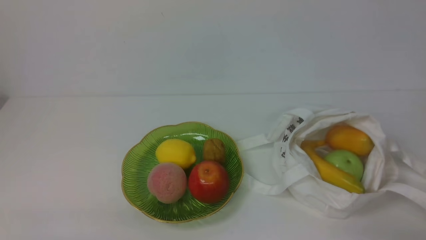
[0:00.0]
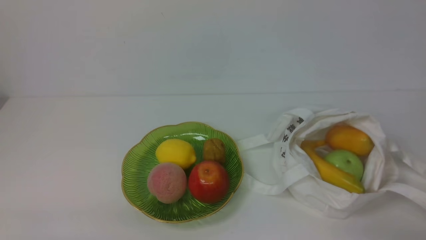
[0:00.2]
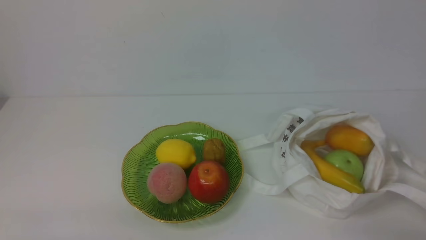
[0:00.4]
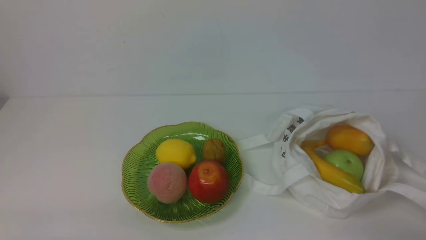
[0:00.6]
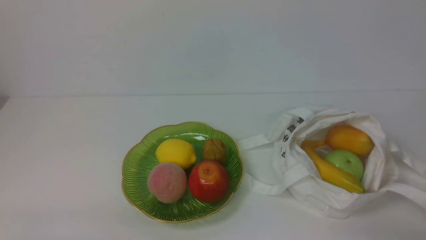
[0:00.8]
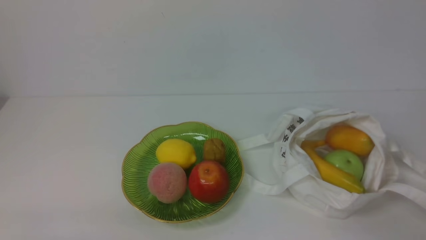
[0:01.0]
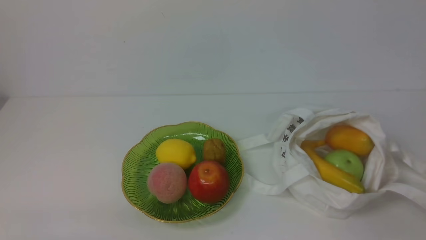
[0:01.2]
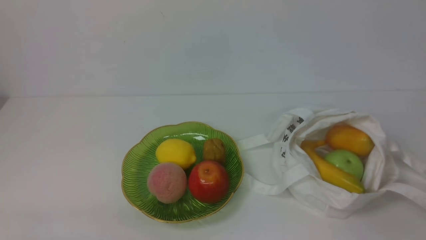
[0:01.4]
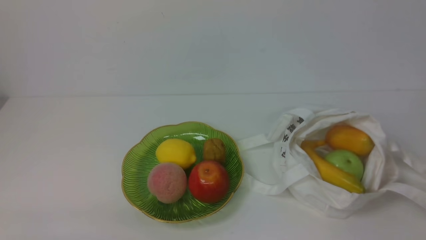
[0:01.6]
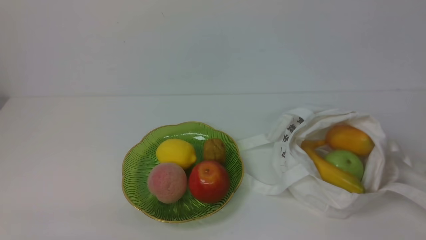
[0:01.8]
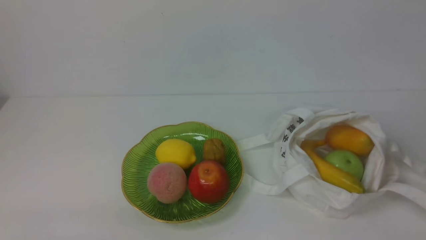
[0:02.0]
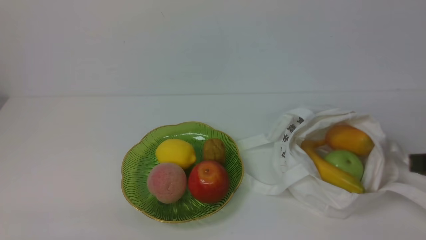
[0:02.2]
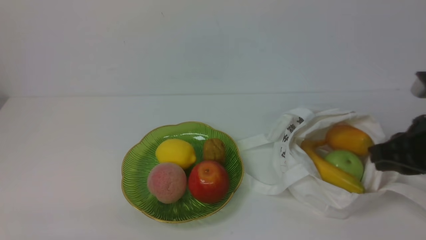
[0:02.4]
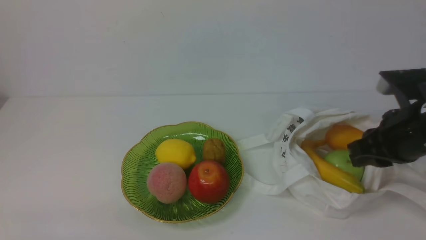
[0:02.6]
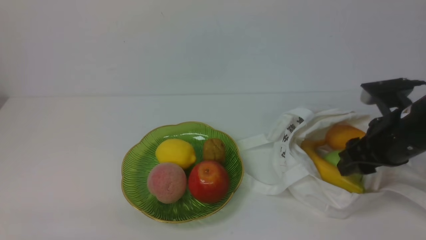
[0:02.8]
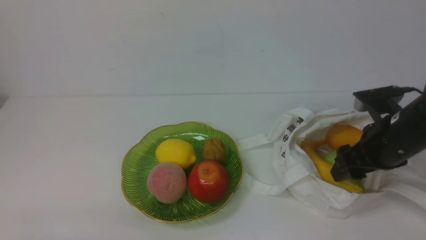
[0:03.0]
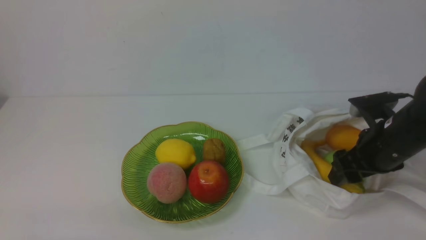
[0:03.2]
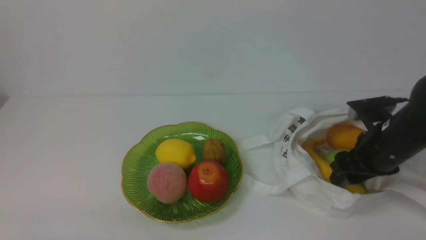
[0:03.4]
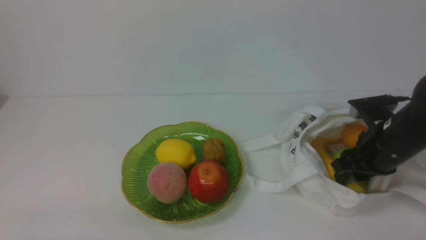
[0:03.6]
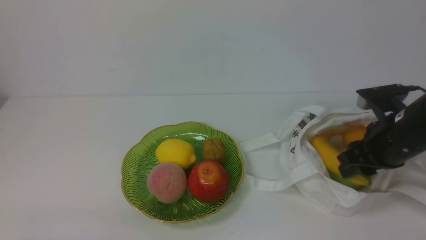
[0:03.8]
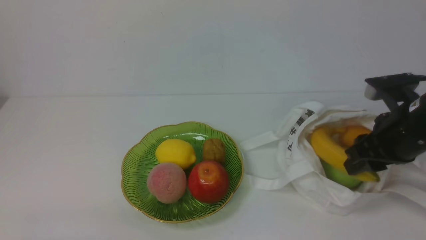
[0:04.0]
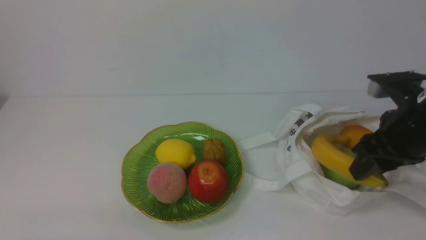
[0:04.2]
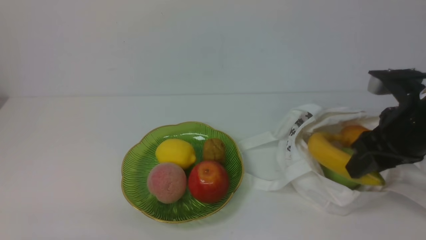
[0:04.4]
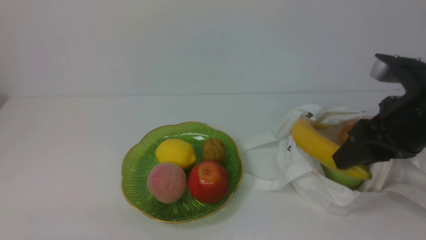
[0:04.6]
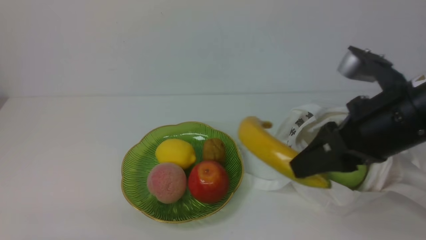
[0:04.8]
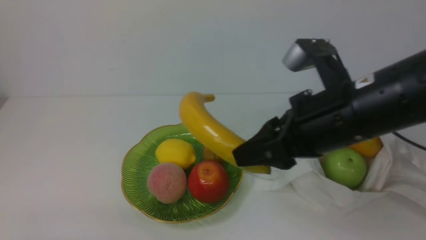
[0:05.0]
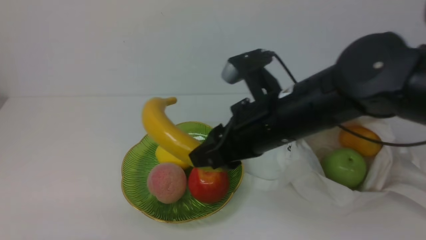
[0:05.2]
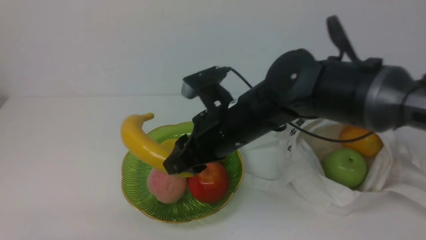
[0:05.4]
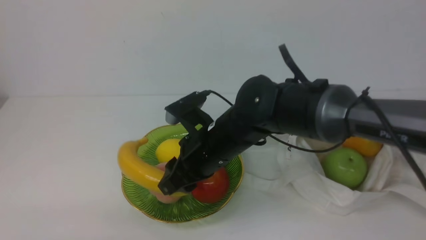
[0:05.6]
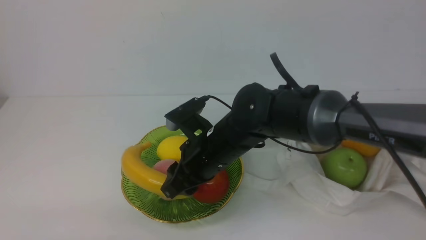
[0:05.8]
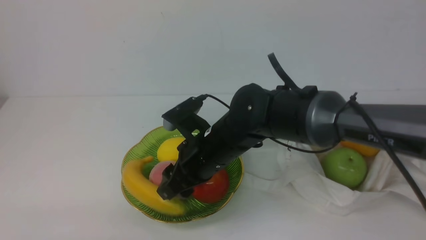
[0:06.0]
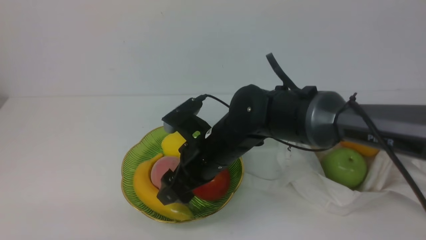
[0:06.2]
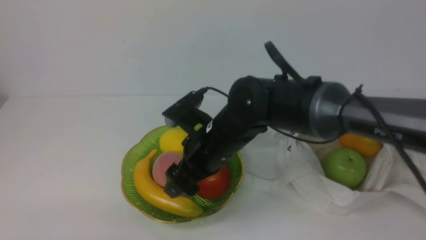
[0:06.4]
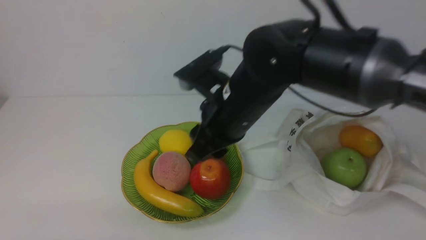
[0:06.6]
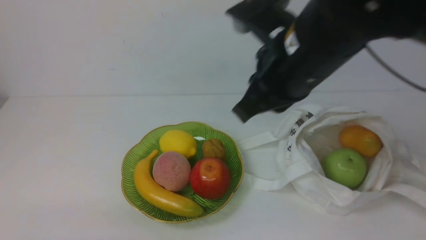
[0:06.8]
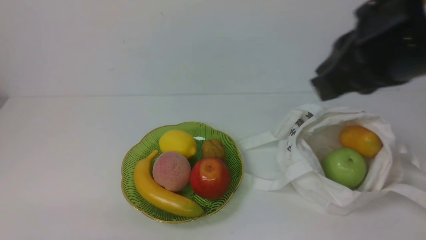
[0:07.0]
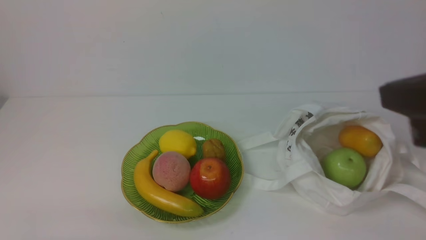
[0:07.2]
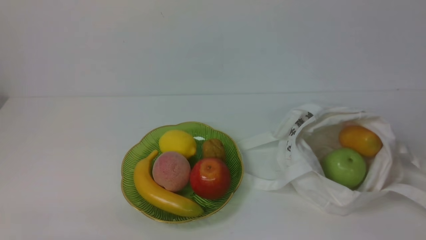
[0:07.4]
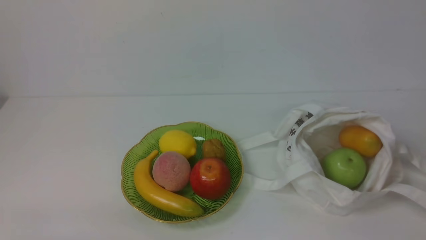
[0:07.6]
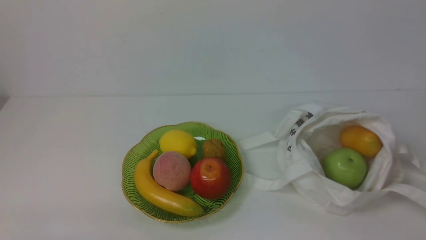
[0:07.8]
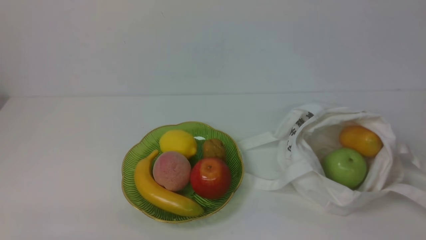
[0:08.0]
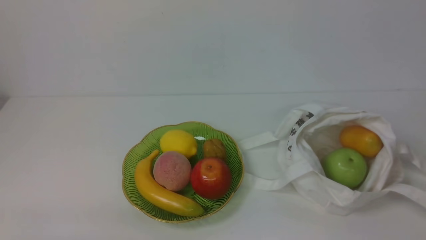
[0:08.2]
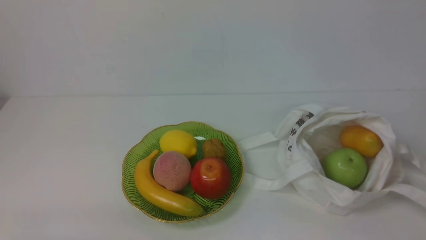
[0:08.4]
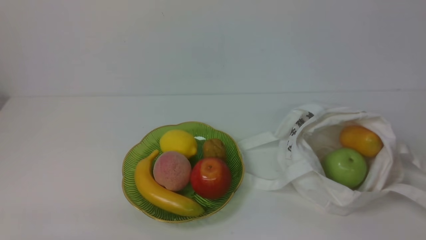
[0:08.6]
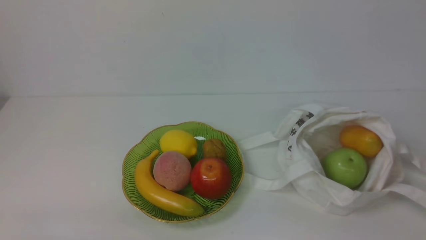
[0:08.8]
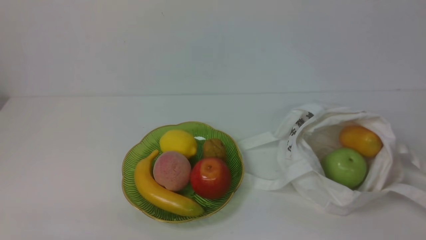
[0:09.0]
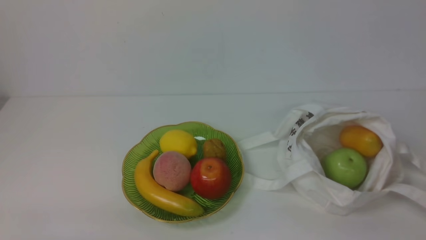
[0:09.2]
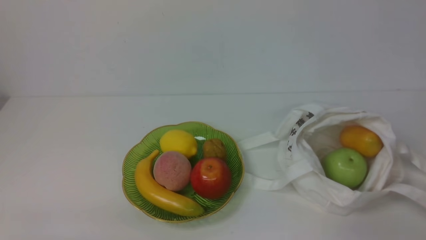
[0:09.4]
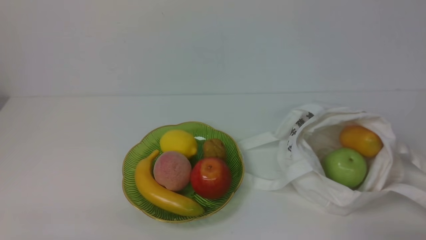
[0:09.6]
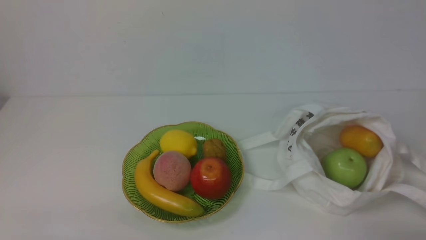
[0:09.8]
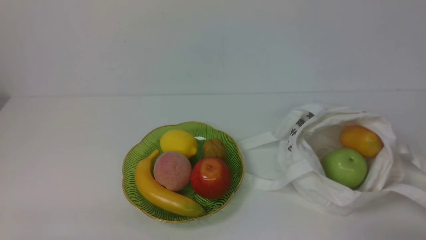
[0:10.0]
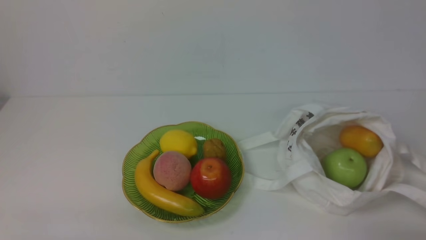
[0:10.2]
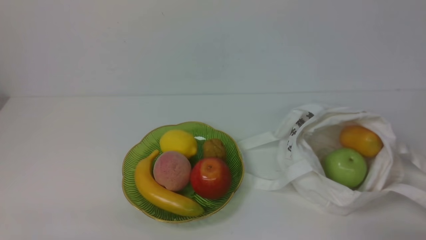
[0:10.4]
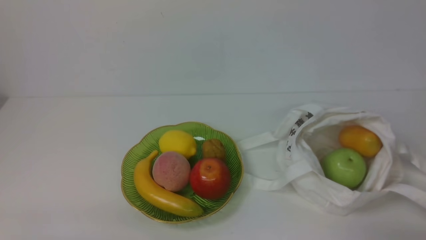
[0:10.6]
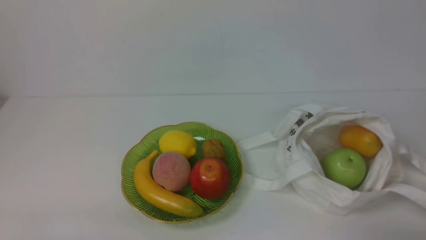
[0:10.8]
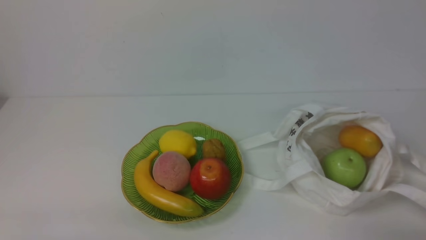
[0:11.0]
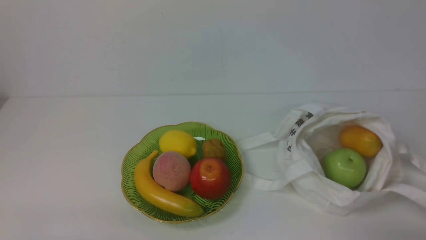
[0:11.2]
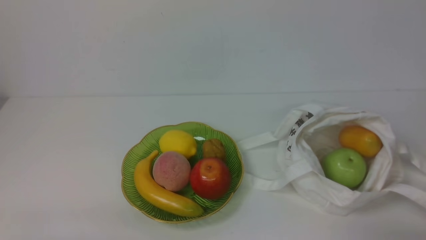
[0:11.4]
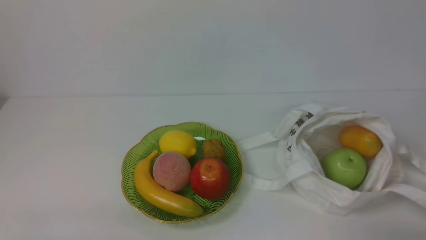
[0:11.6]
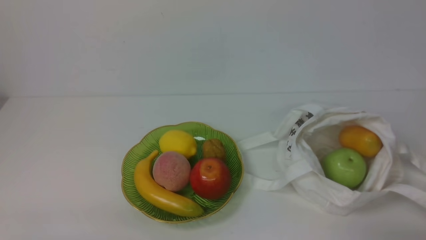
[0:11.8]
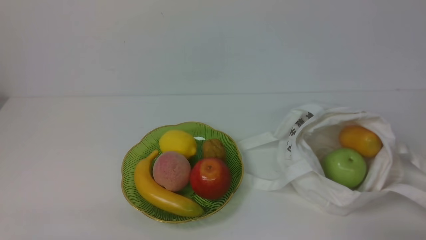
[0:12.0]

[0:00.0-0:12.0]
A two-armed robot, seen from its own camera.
Step, 0:00.0 to 0:03.6: use the right arm to grab a banana from the bag.
Step, 0:03.8 to 0:06.2: use the right arm to put the banana into the empty plate on the right.
0:01.6 to 0:03.0: The right gripper heads forward, covering roughly 25 cm, and opens.
0:03.0 to 0:04.4: The right gripper heads upward, covering approximately 5 cm.
0:04.4 to 0:06.0: The right gripper moves to the left, about 25 cm.
0:06.0 to 0:07.6: The right gripper heads to the right, backward and upward, covering about 40 cm, and closes up.
0:10.4 to 0:12.0: The two grippers keep their place.
